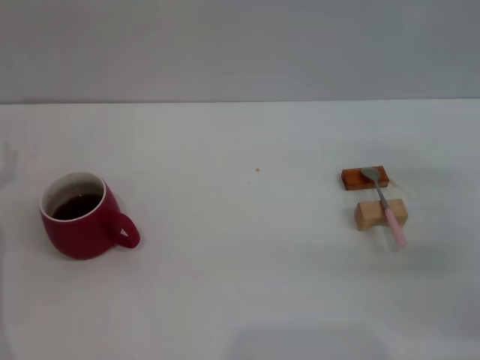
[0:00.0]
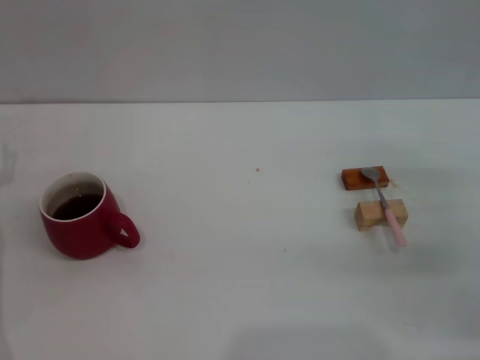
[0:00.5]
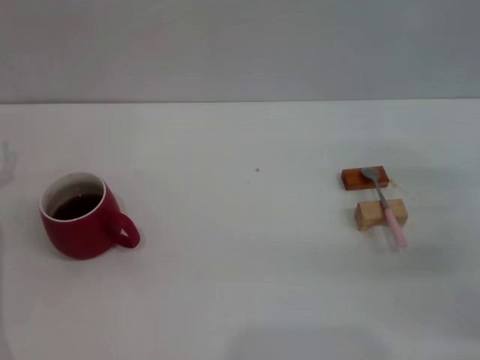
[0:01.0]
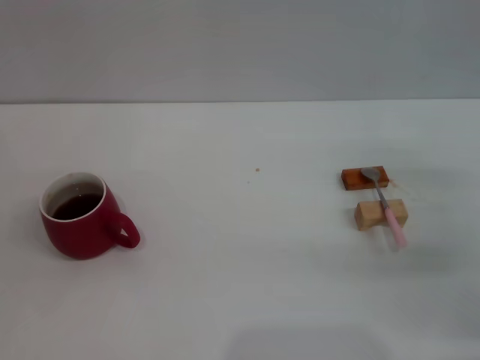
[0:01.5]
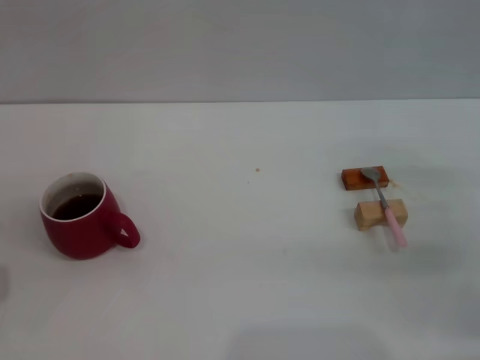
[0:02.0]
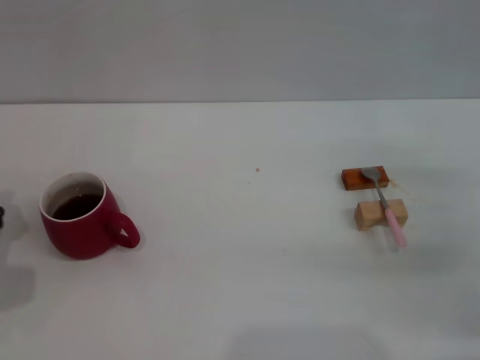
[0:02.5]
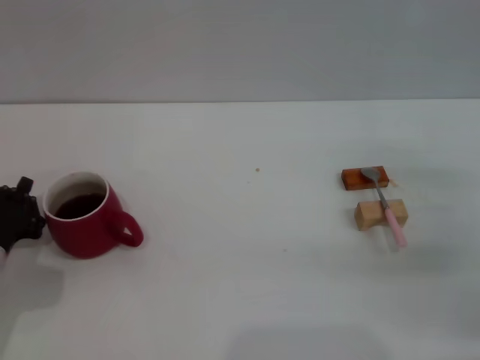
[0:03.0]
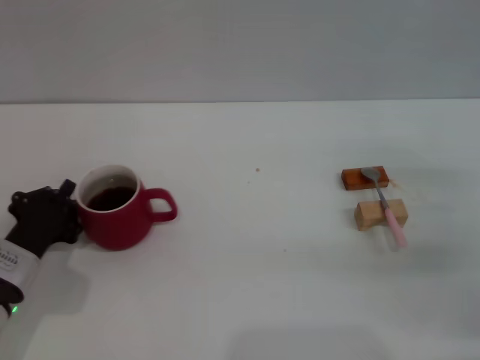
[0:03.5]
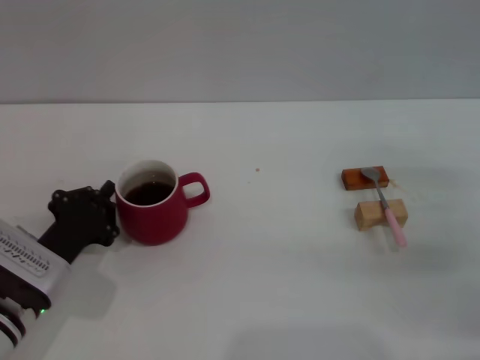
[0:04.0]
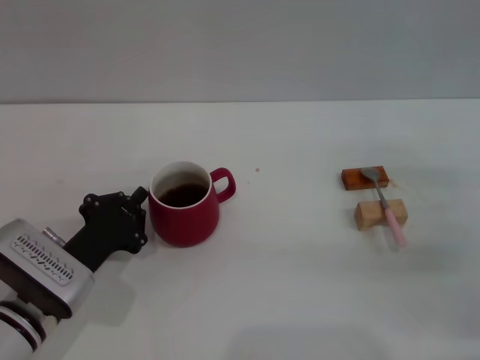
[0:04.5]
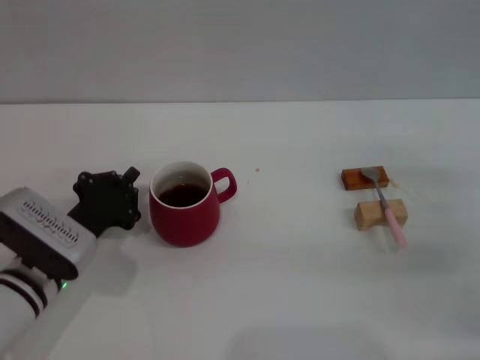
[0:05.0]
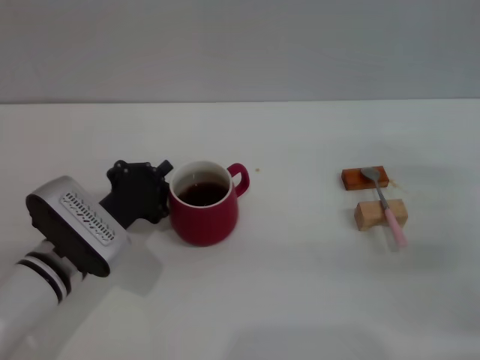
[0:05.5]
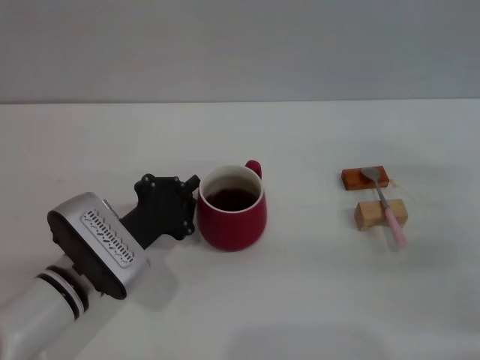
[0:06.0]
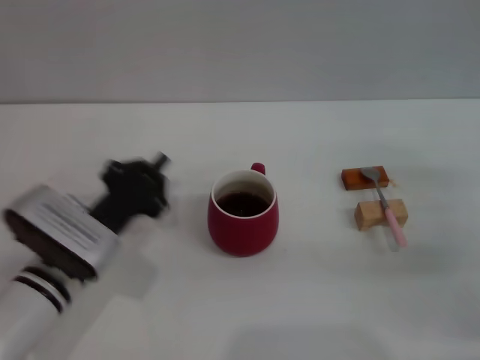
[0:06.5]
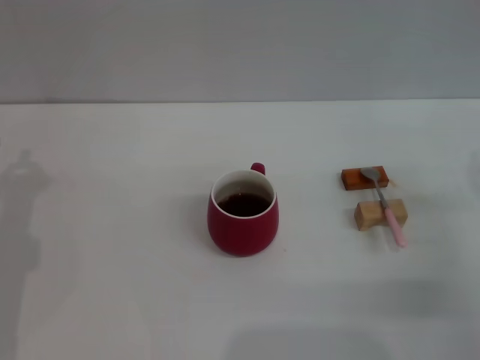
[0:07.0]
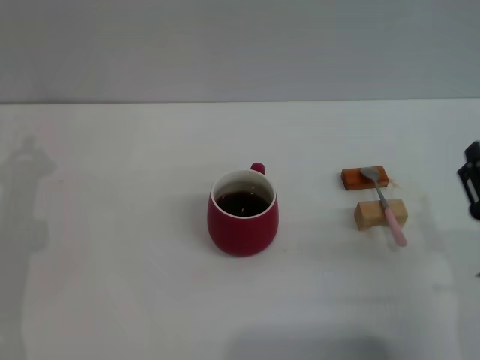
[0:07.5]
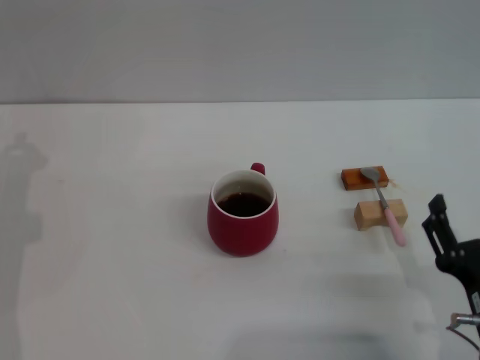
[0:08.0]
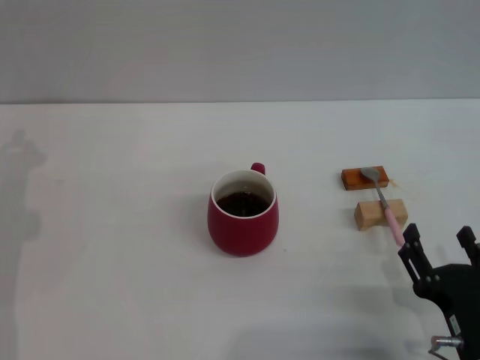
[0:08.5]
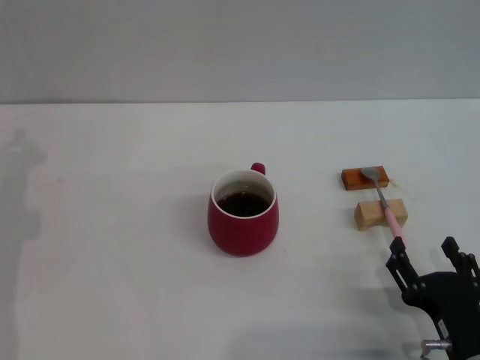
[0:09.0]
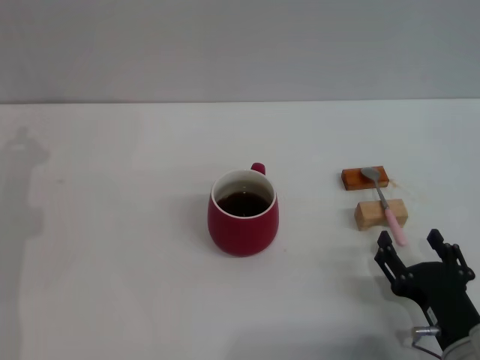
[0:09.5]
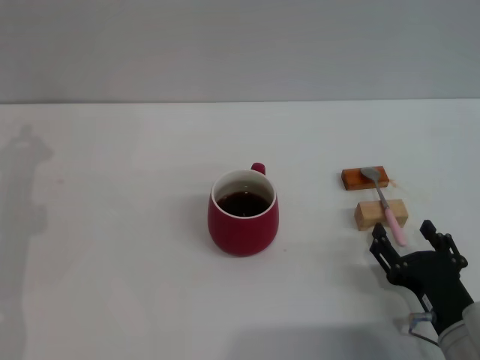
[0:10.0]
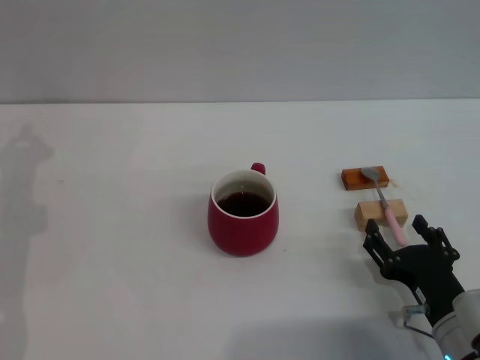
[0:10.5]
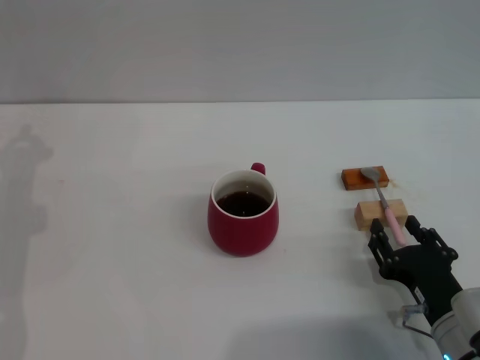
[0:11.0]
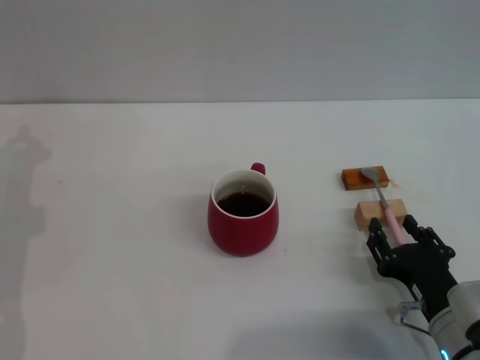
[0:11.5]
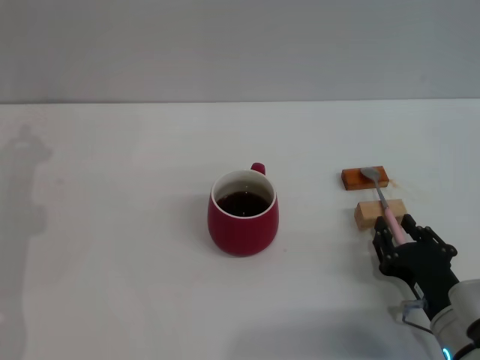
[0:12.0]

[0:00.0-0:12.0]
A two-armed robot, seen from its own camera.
Task of the whole recording: Move the red cup to the center, lift the pink spoon, stir it three times in the cup, and put the spoon into the cup.
Step, 0:00.0 to 0:06.5: Move the cup with coffee to the center of view with the left gripper.
0:02.0 to 0:04.0: The left gripper shifts roughly 10 cm to the right.
0:04.0 to 0:06.0: The left gripper moves to the right, some 5 cm.
0:06.0 to 0:08.0: The left gripper goes about 15 cm to the left and upward, while the right gripper shifts roughly 20 cm backward and to the left.
0:08.0 to 0:10.0: The right gripper changes place by about 5 cm.
0:10.0 to 0:12.0: The right gripper closes up.

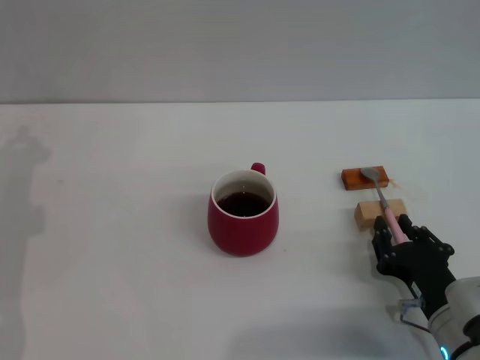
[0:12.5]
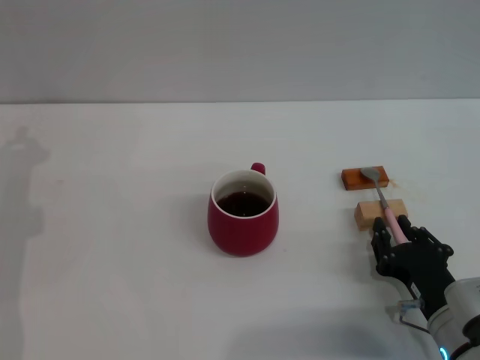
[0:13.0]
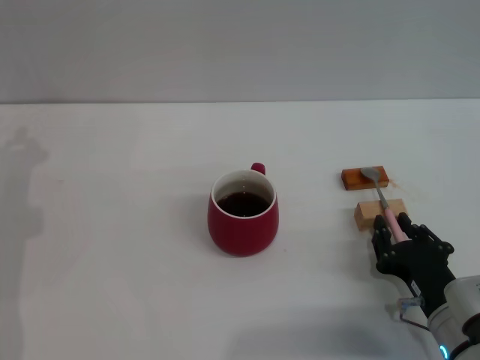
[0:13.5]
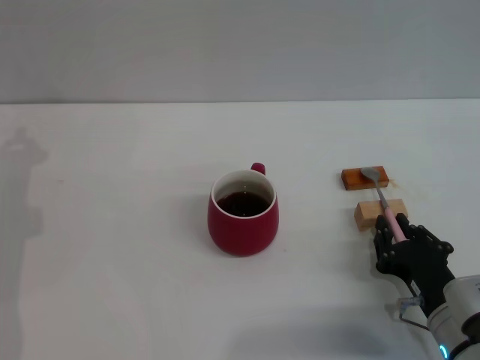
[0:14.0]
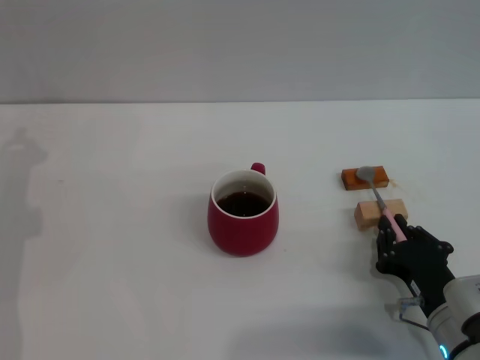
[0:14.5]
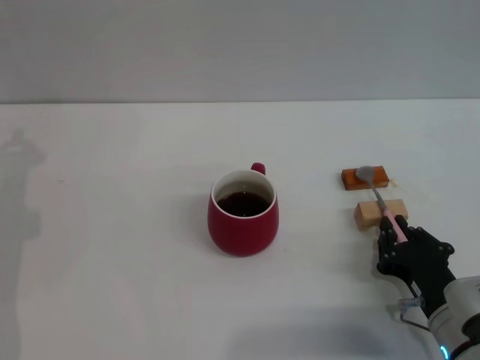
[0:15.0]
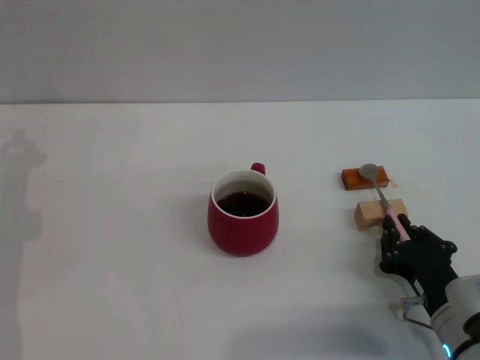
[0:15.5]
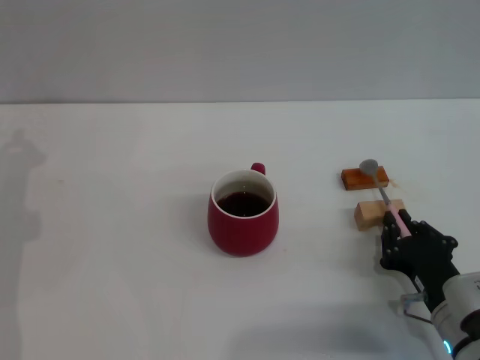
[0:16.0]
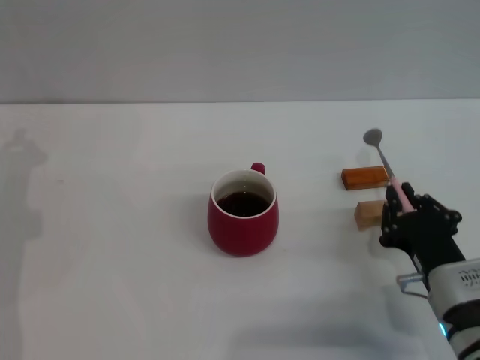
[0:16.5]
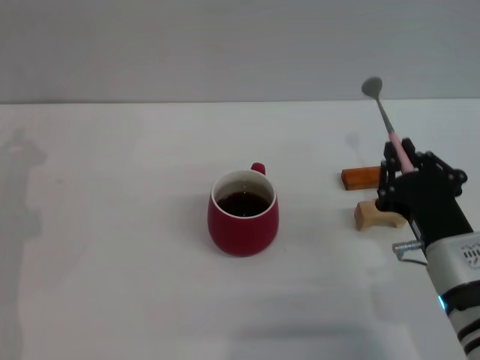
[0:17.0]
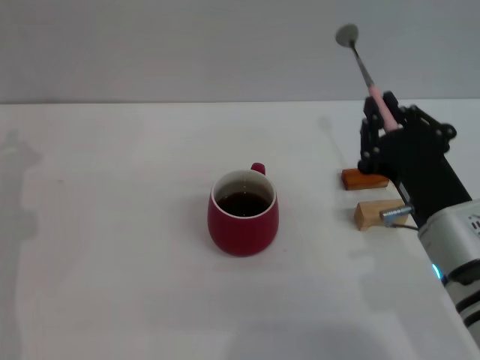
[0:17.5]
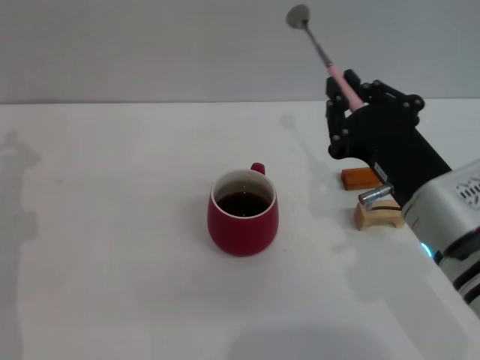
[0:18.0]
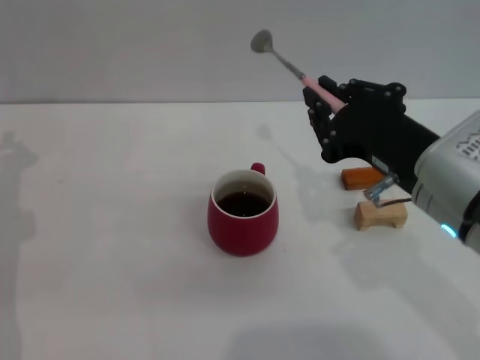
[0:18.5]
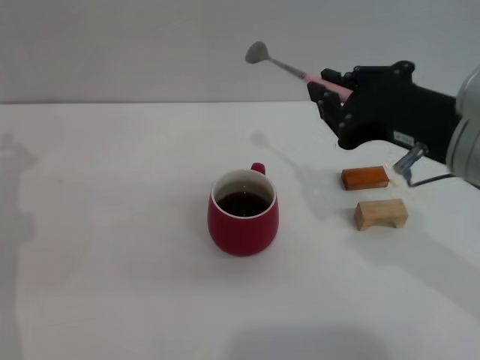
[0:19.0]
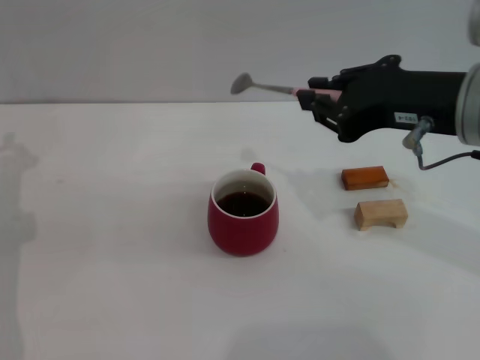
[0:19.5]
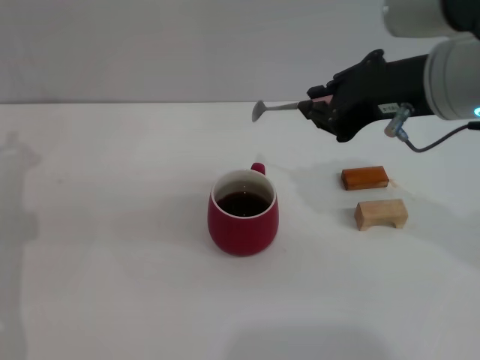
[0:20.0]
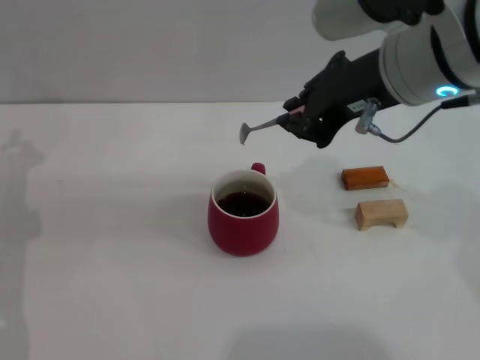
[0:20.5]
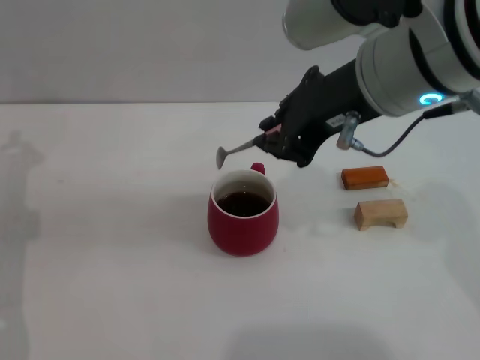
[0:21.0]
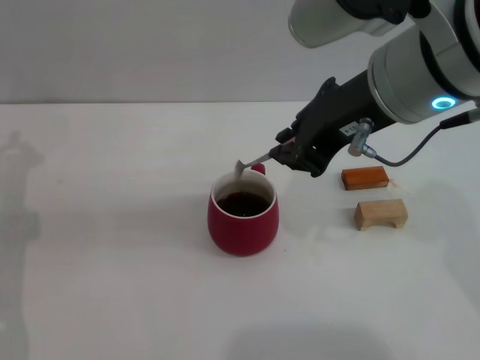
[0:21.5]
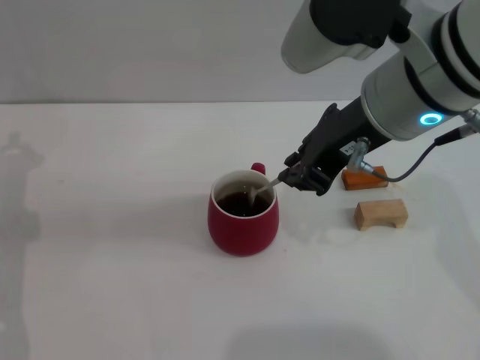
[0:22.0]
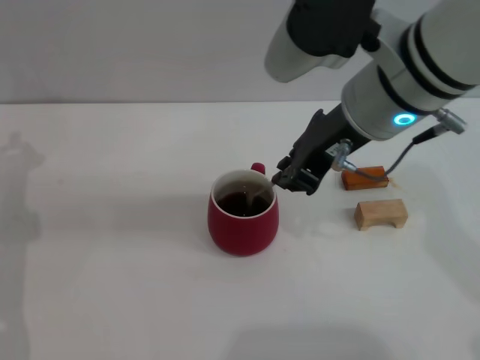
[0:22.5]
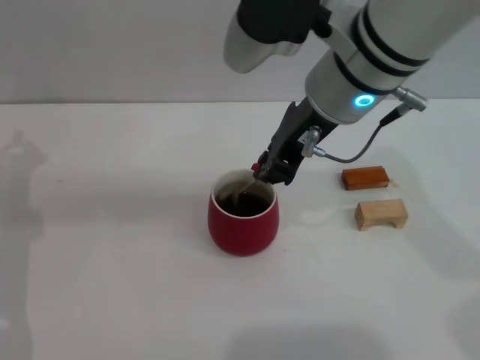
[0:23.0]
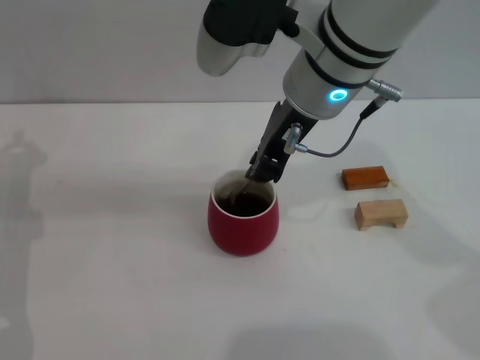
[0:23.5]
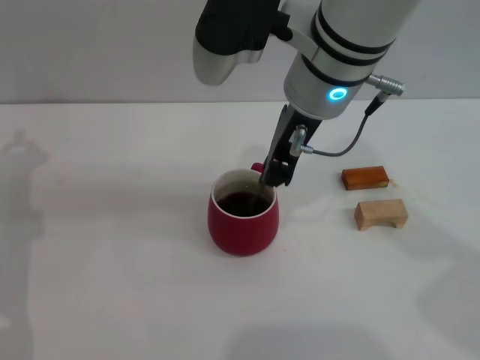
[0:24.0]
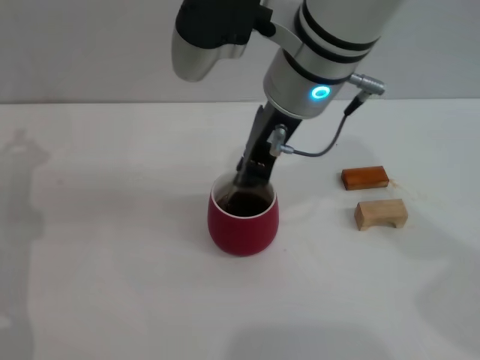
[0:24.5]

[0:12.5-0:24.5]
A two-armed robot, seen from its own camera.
Task of the whole recording: Move the red cup to the center, lift the pink spoon, stir it three times in the cup, and put the spoon into the cup.
Step, 0:12.5 to 0:16.5: Pick up the spoon with the right gripper.
0:12.5 to 0:14.5: Neither gripper changes place.
0:14.5 to 0:16.5: The grippers move only a little.
0:16.5 to 0:18.5: The right gripper travels upward by about 15 cm.
0:18.5 to 0:20.5: The right gripper is displaced upward and forward by about 15 cm.
0:20.5 to 0:22.5: The grippers move only a little.
0:22.5 to 0:24.5: The right gripper moves to the left, approximately 5 cm.

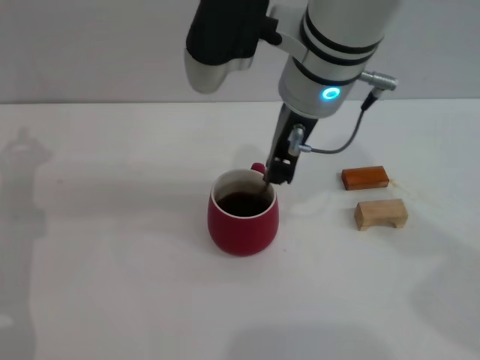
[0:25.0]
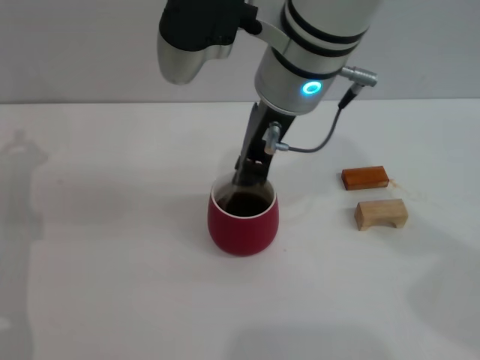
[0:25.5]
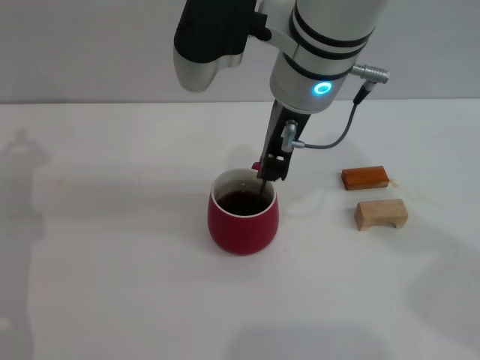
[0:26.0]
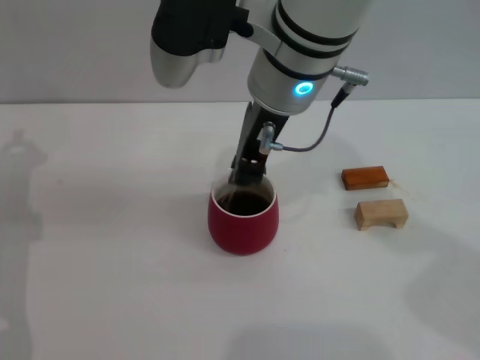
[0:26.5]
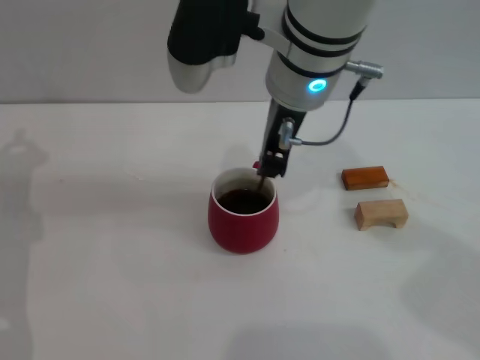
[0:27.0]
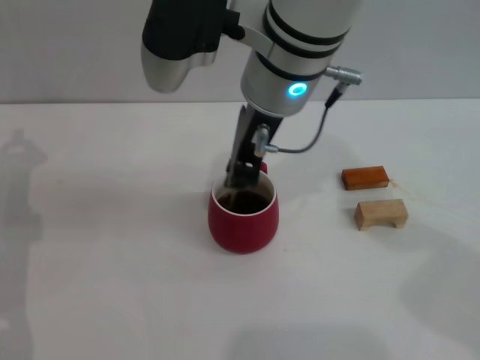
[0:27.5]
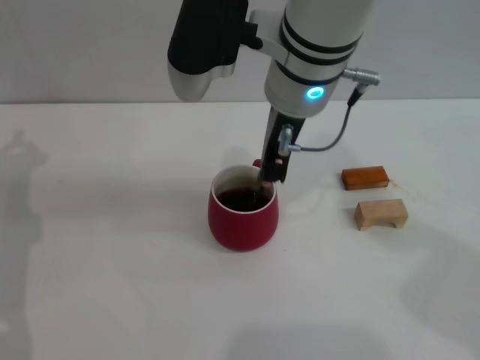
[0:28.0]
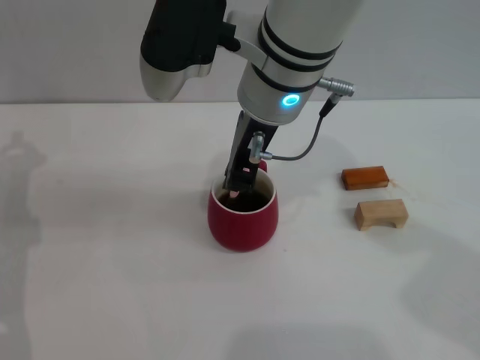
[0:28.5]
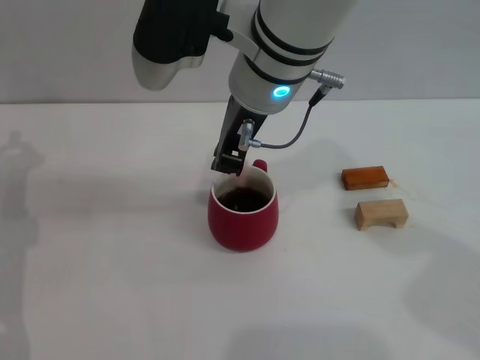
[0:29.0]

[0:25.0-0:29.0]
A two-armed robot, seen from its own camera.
Task of the whole recording: Move the red cup to the center, lift the pink spoon, stir it three times in the cup, and put the spoon into the cup.
0:25.0 to 0:29.0: There are only small adjustments of the grippers.
